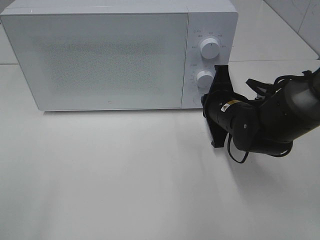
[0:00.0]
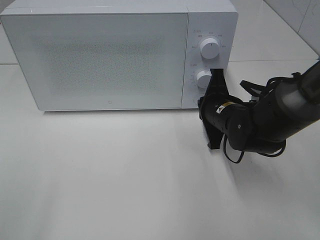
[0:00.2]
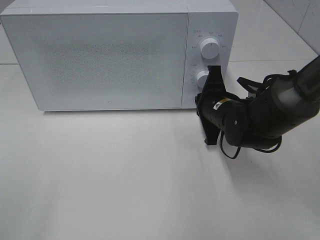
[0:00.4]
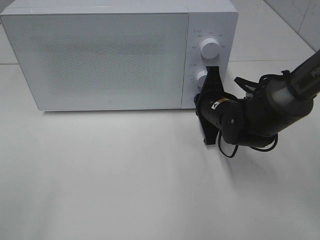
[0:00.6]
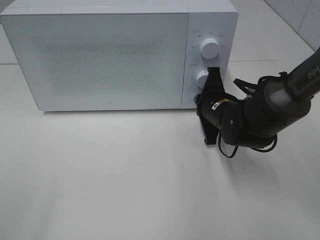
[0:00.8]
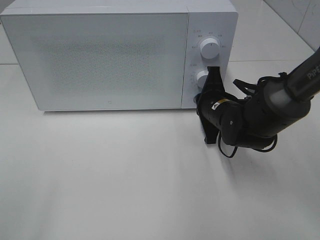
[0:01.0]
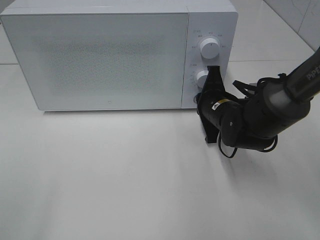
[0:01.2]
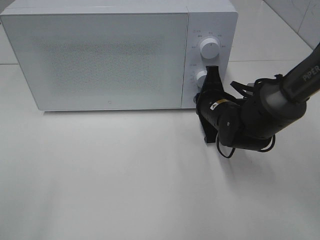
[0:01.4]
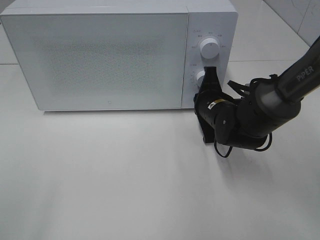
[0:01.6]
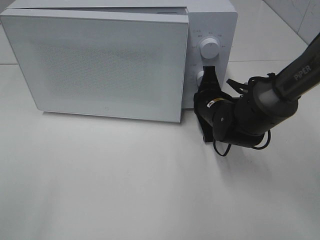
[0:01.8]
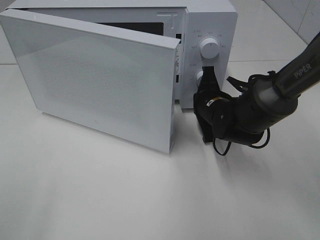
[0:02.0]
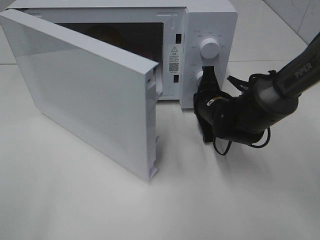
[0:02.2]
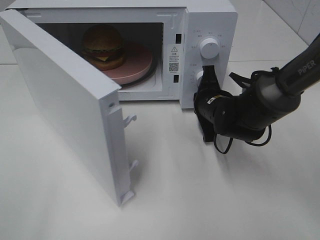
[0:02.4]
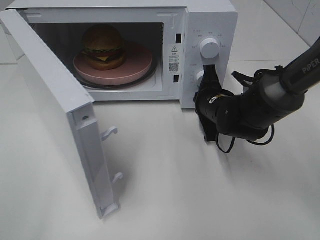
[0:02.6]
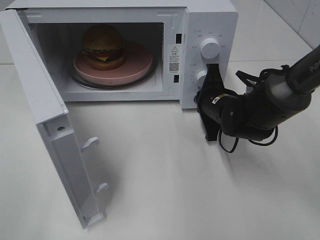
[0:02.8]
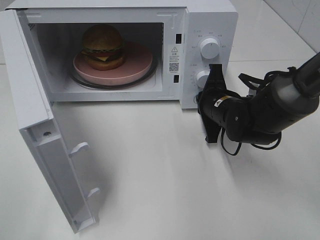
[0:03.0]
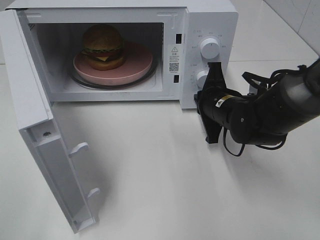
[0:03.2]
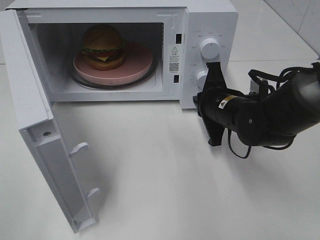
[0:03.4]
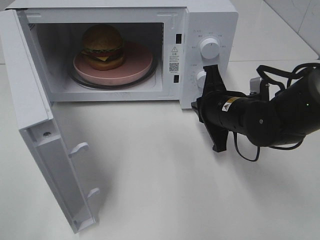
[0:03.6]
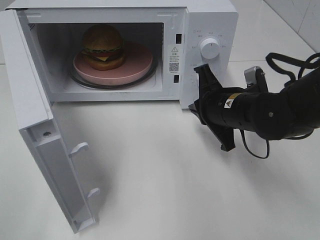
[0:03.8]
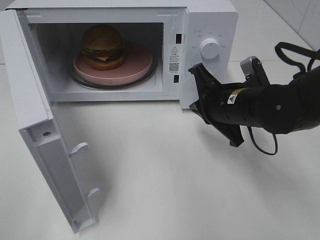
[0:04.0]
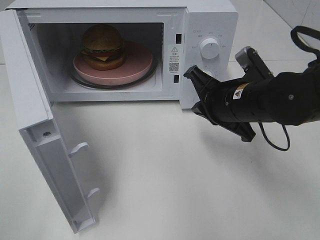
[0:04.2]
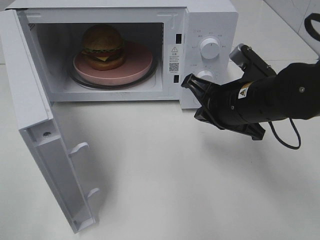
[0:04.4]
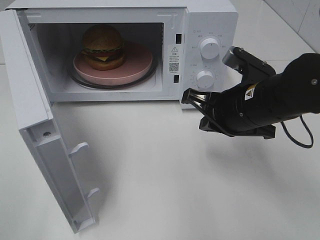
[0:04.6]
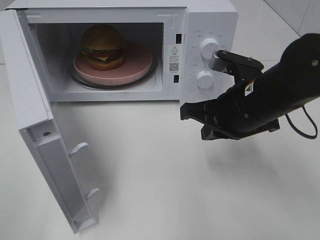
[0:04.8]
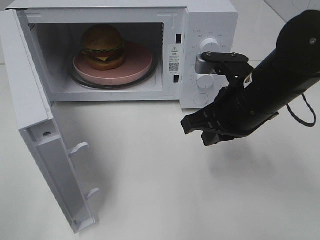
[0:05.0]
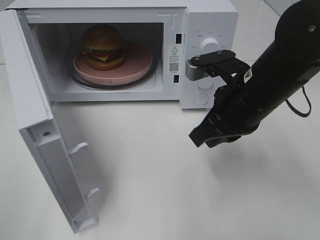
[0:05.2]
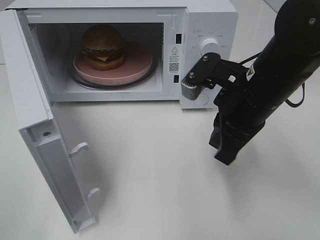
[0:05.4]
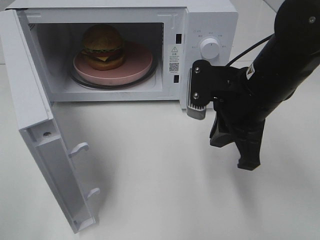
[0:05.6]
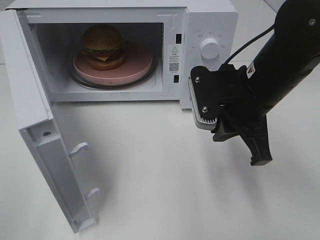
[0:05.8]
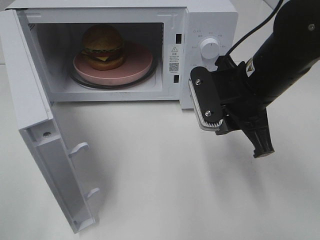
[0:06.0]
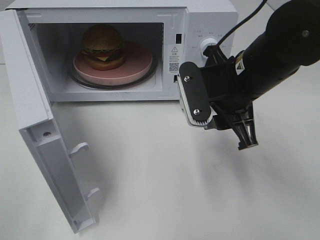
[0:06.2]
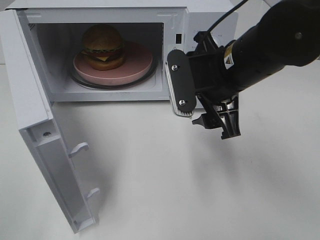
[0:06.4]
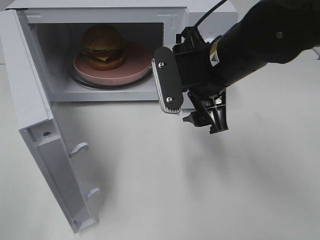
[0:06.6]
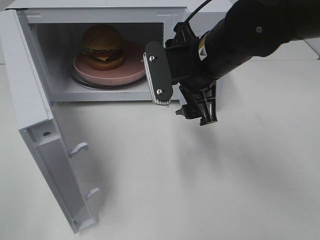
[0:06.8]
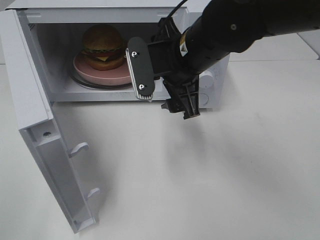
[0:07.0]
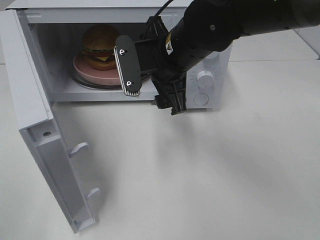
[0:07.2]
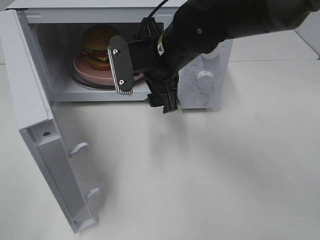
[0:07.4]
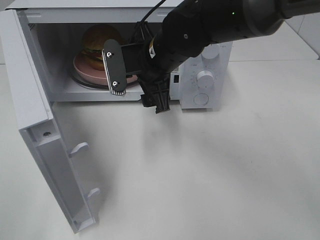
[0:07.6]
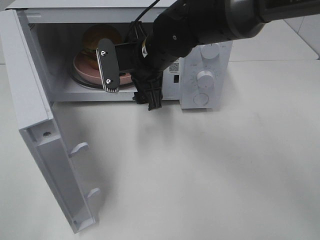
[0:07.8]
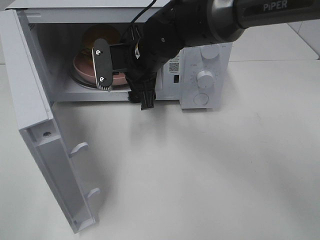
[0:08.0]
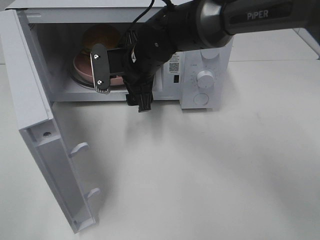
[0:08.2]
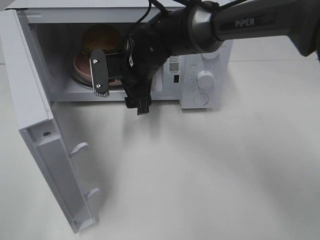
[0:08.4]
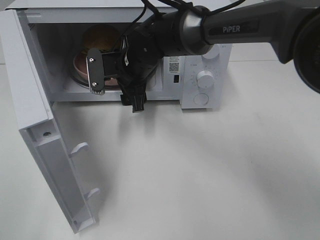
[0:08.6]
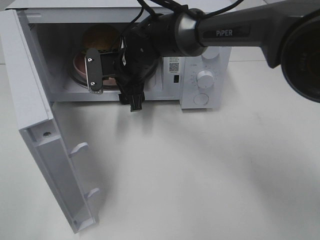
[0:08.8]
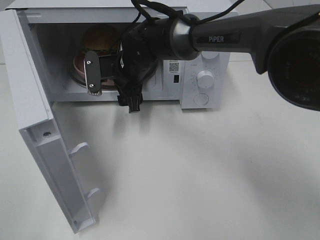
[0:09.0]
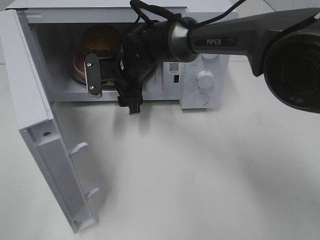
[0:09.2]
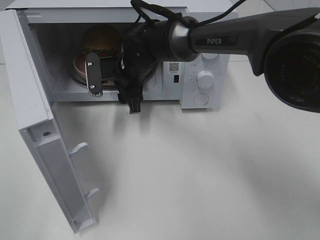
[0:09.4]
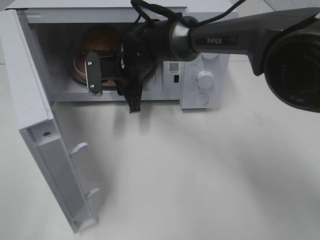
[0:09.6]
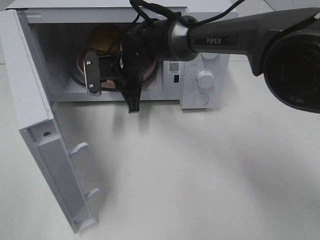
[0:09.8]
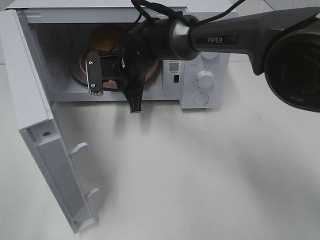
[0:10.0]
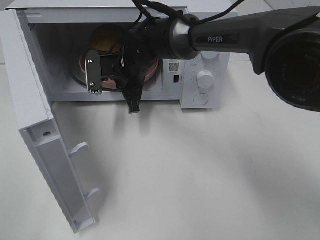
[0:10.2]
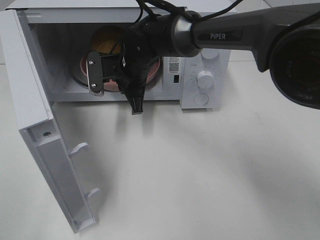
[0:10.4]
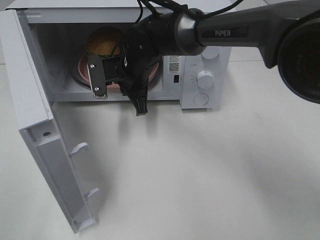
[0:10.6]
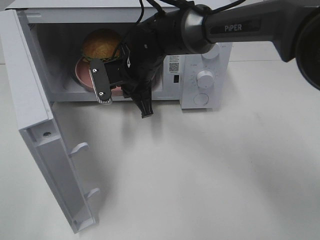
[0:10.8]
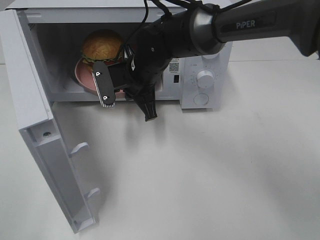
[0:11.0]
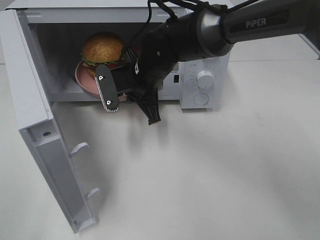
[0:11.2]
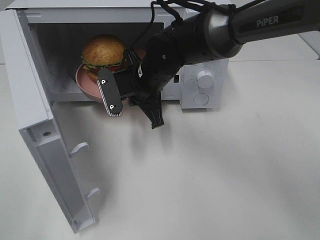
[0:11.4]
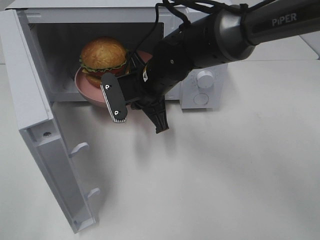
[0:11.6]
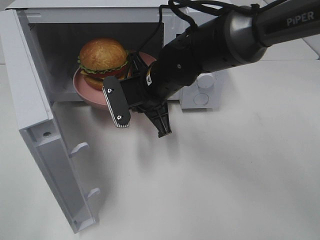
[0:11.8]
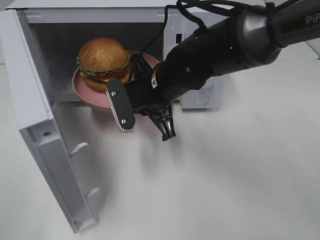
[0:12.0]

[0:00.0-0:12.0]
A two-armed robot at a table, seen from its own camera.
Task of the whole recording: Heat the burger.
Step, 0:00.0 to 0:03.2: Right hand: press the switch.
Step, 0:03.4 to 0:10.2: Right hand: grab the plate with the hamburger.
0:00.0 to 0:01.6: The grippers move only a little.
0:03.0 to 0:04.4: The right gripper goes about 10 cm upward and backward.
0:04.4 to 0:06.0: The right gripper opens up.
0:06.0 to 0:07.6: The right gripper is displaced to the left and forward by roughly 15 cm, and opens its fingers.
0:07.6 to 0:09.0: The right gripper travels forward, downward and to the left by approximately 10 cm.
0:09.0 to 0:10.4: The right gripper closes.
0:10.4 to 0:12.0: The right gripper moves backward and to the right, roughly 10 cm.

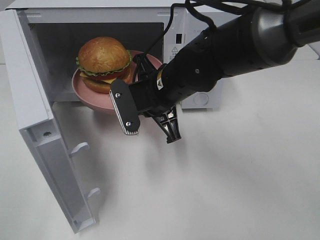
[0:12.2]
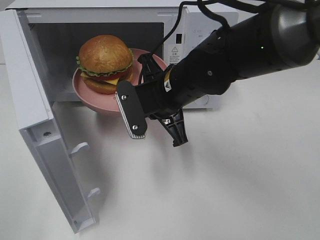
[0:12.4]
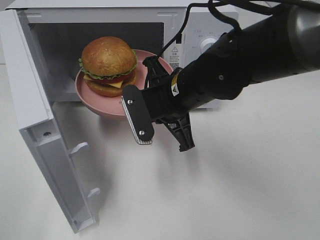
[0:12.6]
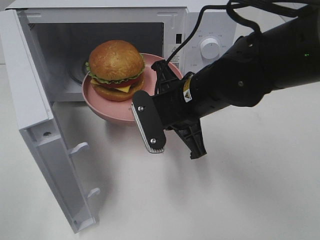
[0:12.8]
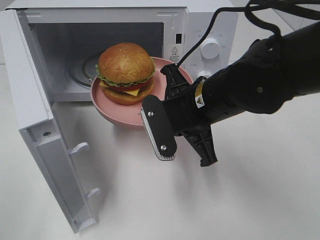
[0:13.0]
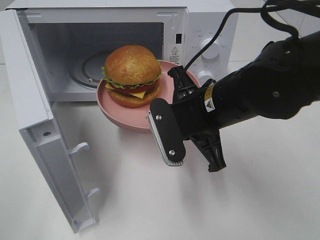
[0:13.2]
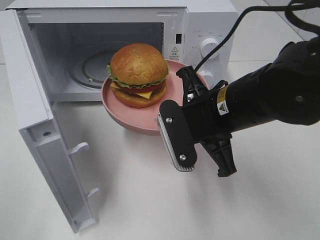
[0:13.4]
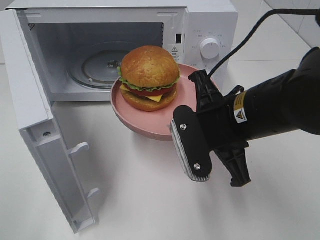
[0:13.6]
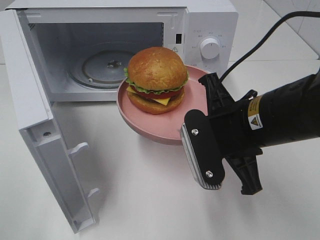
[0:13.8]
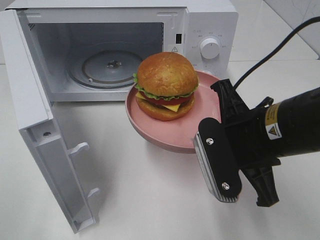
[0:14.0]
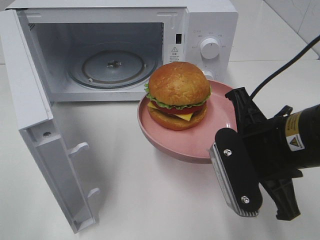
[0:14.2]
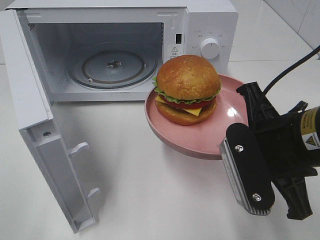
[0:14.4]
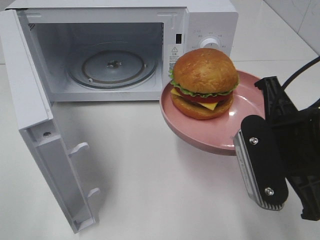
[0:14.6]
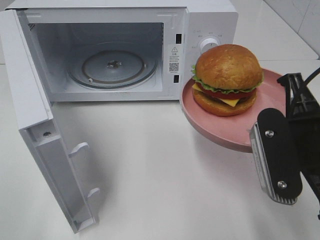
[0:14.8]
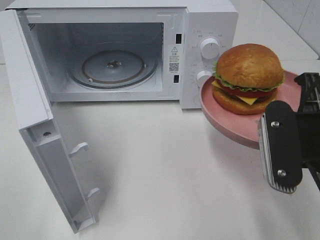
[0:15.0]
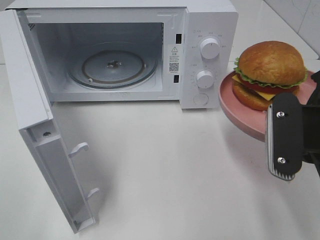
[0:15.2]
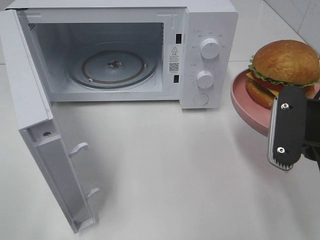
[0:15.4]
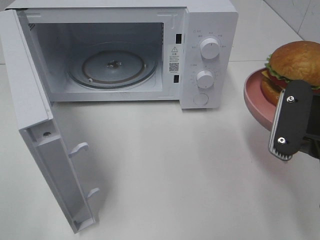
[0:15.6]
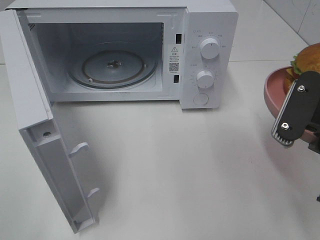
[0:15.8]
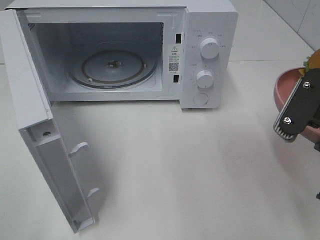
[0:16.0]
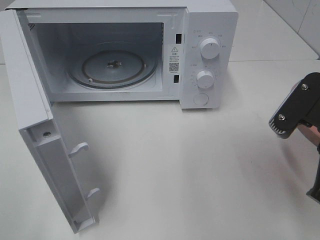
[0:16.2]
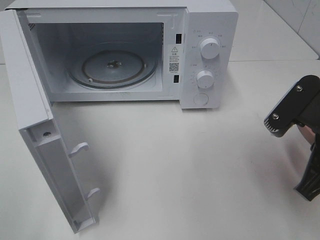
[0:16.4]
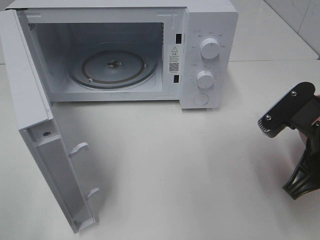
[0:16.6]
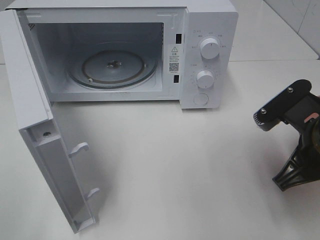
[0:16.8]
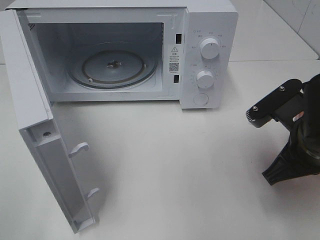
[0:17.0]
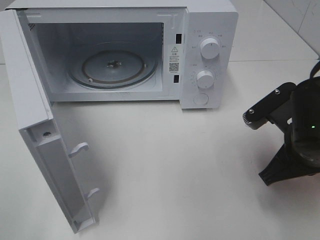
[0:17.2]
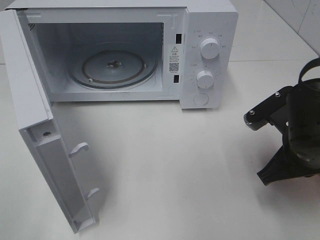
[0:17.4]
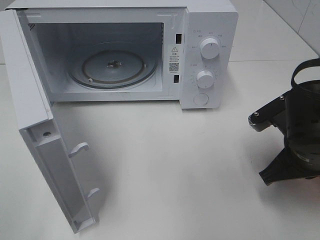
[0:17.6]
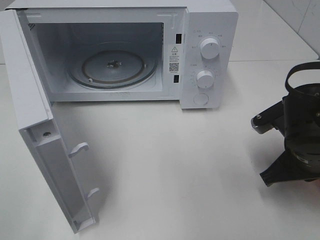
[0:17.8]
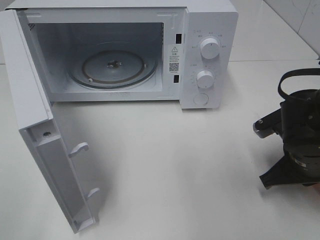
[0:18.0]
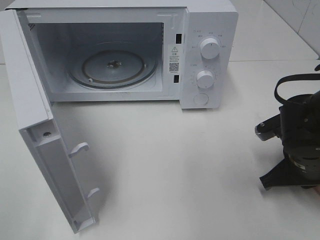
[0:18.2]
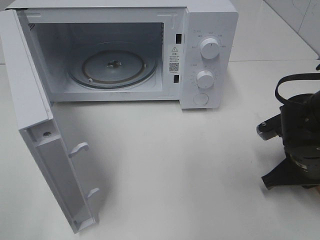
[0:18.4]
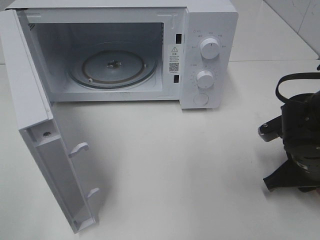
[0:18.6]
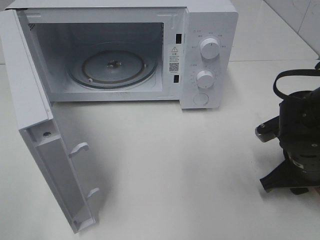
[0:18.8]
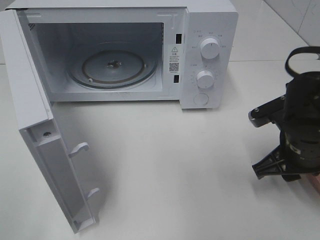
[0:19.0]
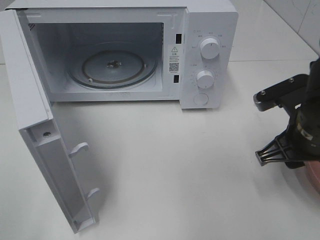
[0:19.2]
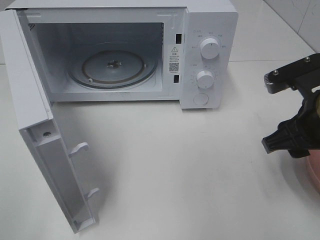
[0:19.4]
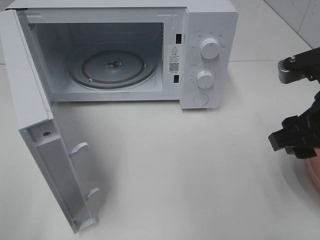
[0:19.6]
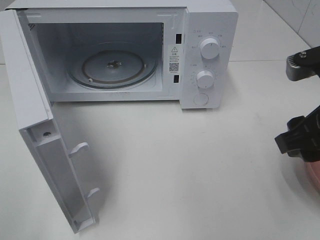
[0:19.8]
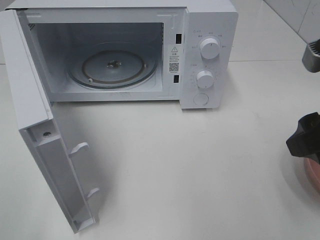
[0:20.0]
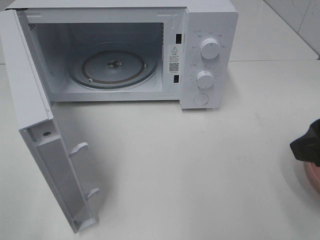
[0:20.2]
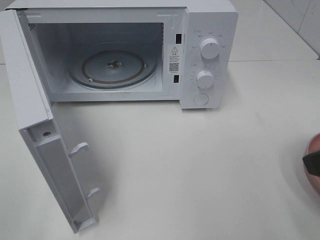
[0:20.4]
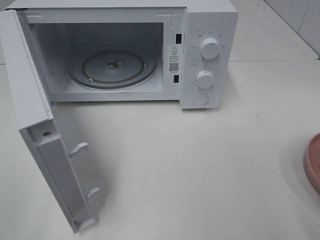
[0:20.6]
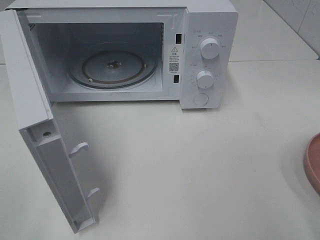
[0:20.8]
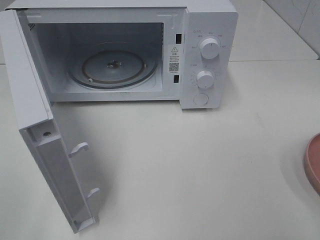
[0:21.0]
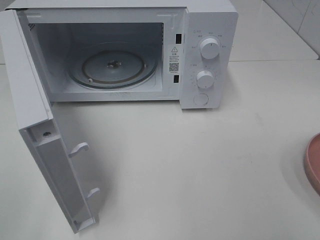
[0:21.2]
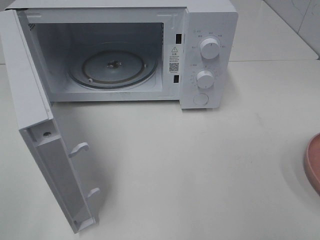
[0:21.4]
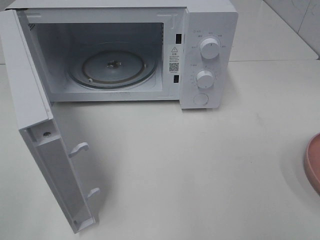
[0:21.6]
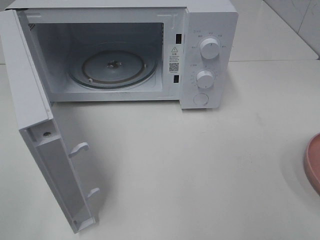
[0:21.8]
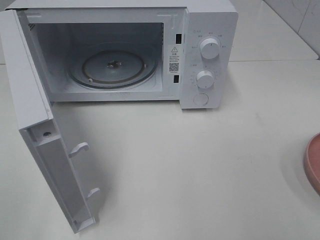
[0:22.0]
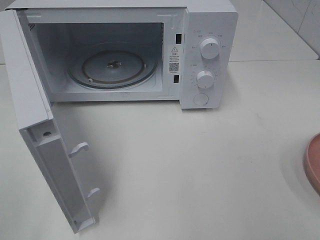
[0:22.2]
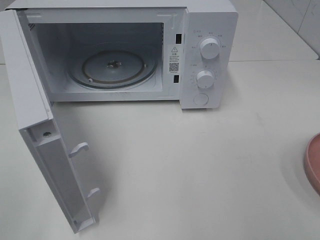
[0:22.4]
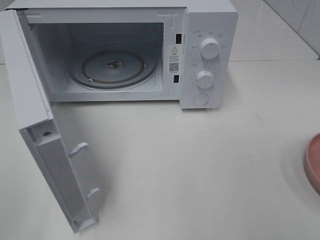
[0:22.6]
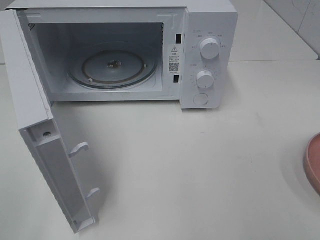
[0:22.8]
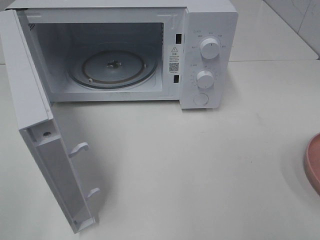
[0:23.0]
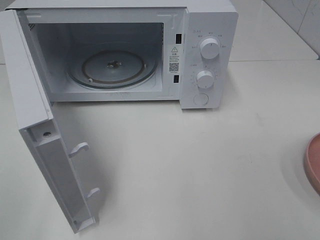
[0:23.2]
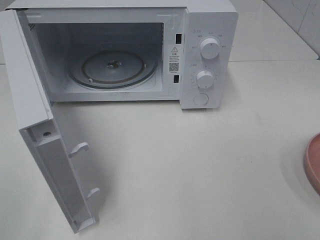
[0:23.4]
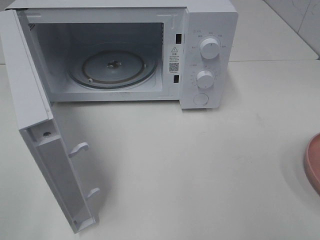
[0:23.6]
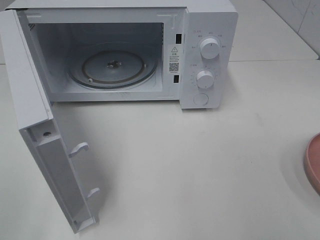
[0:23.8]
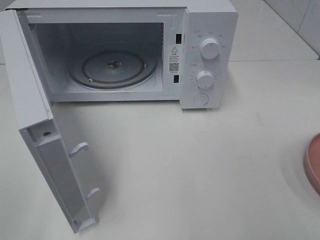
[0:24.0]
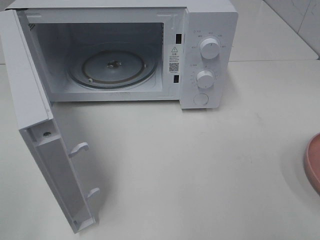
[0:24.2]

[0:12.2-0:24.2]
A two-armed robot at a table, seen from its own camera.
Task of the whole recording: Heat the burger.
Step, 0:12.2 to 0:18.6: Right hand: place the plate on the table.
0:12.2 to 0:13.8: The right gripper shifts some 15 cm backward and to the right.
0:13.8 to 0:15.2: The right gripper shifts some 10 cm to the right.
0:16.6 to 0:18.2: The right gripper heads downward and forward, covering some 10 cm.
0:18.2 to 0:19.8: The right gripper heads upward, covering roughly 15 cm, and opens.
0:19.8 to 0:21.2: The right gripper moves backward and to the right, approximately 15 cm.
0:22.6 to 0:24.2: Neither gripper changes place.
